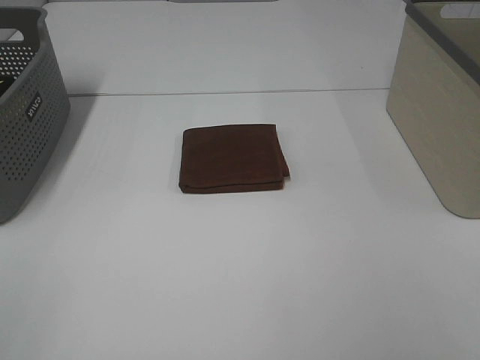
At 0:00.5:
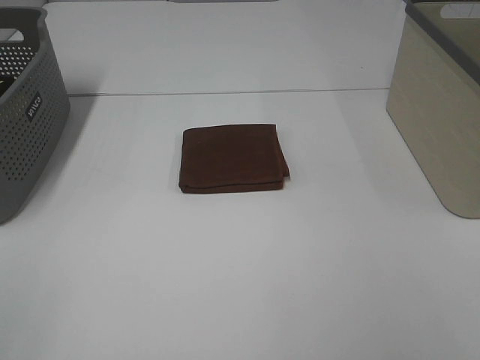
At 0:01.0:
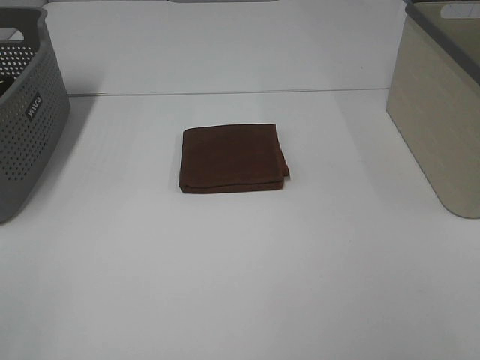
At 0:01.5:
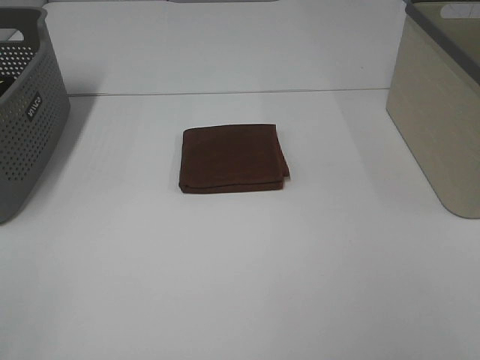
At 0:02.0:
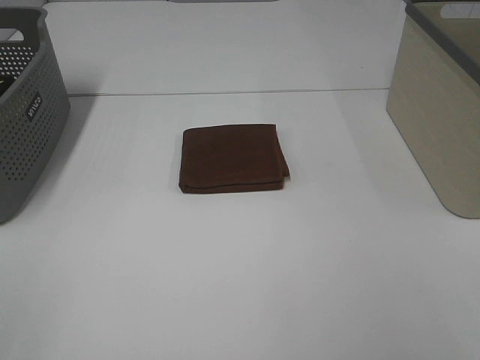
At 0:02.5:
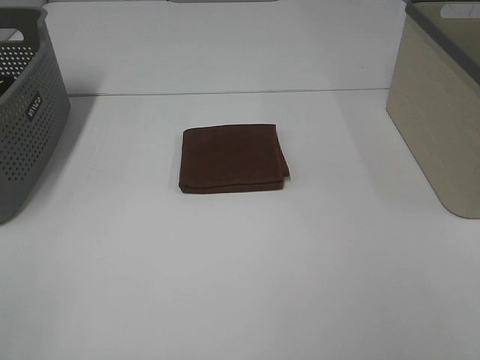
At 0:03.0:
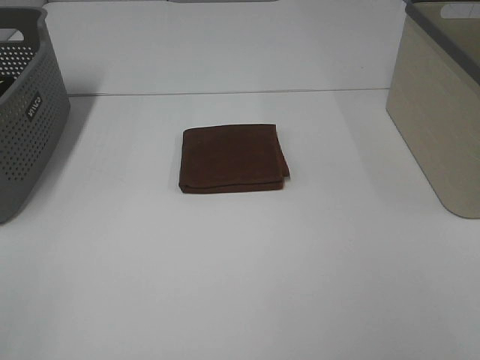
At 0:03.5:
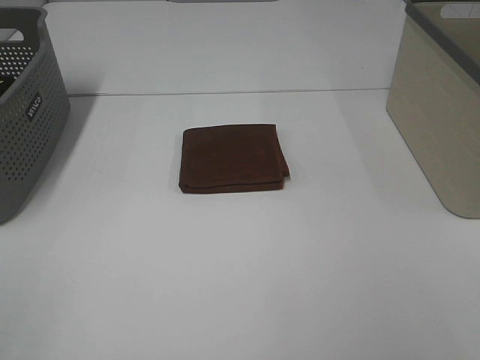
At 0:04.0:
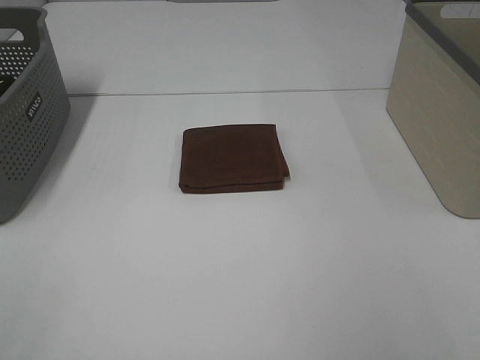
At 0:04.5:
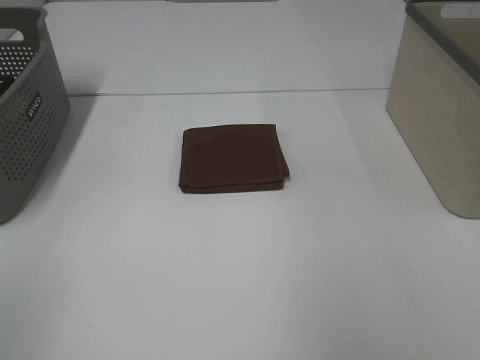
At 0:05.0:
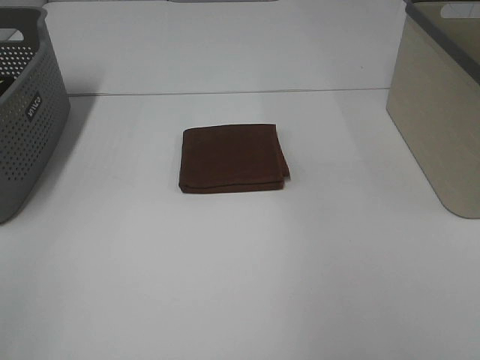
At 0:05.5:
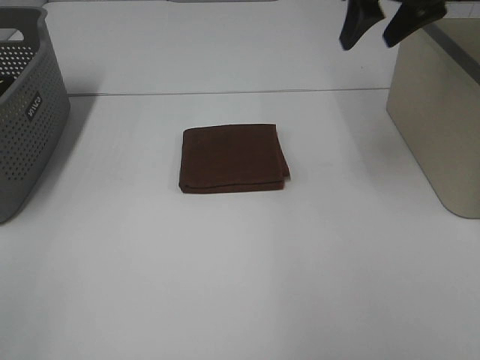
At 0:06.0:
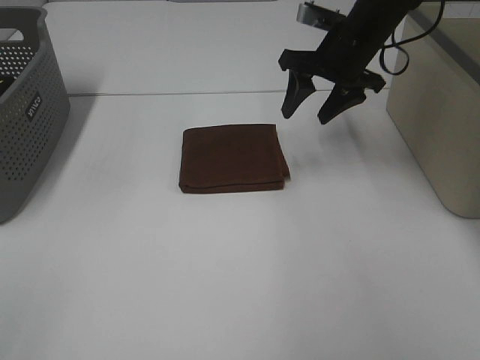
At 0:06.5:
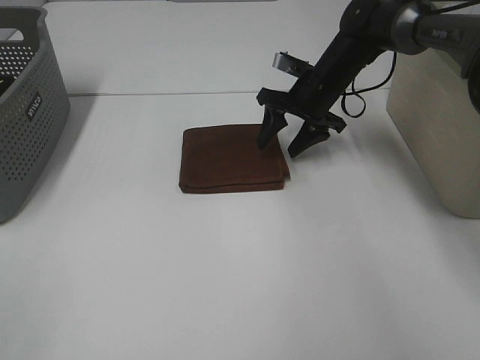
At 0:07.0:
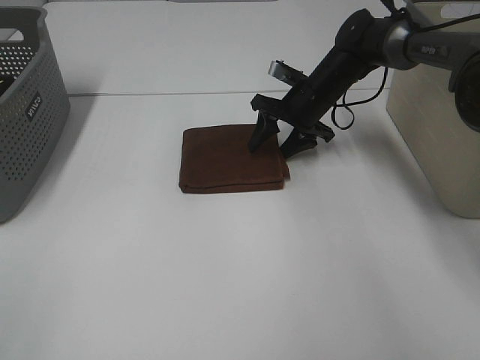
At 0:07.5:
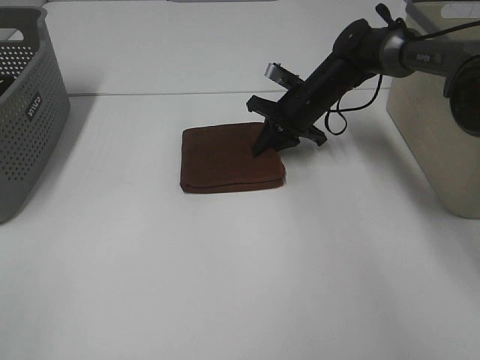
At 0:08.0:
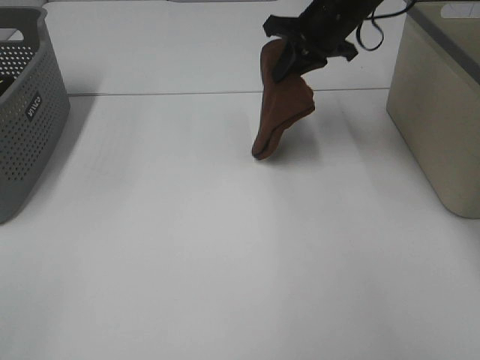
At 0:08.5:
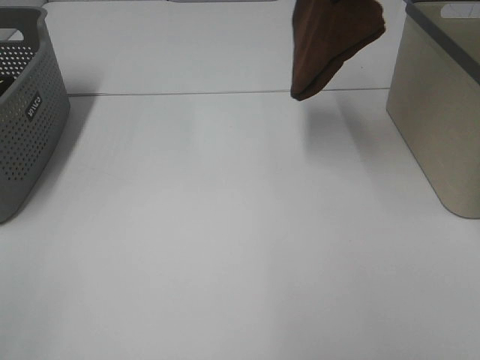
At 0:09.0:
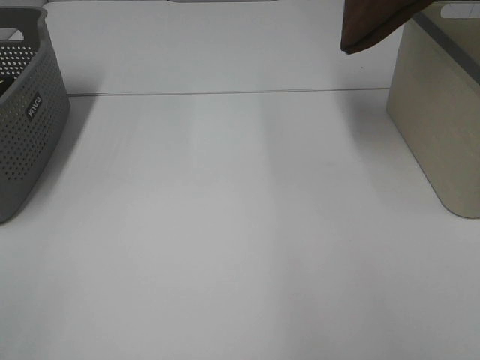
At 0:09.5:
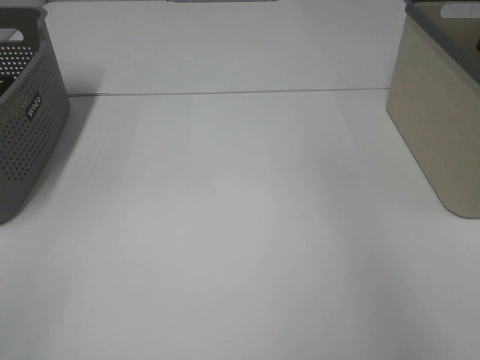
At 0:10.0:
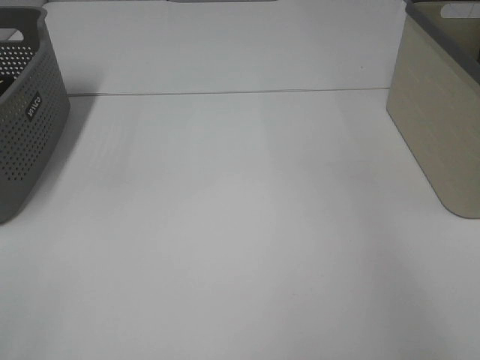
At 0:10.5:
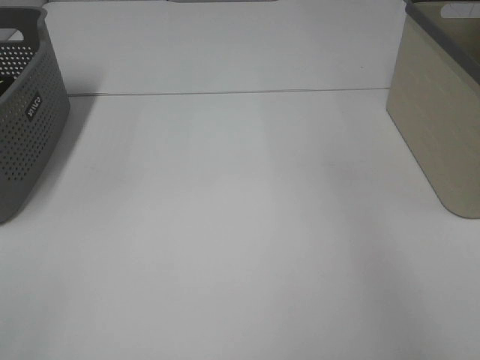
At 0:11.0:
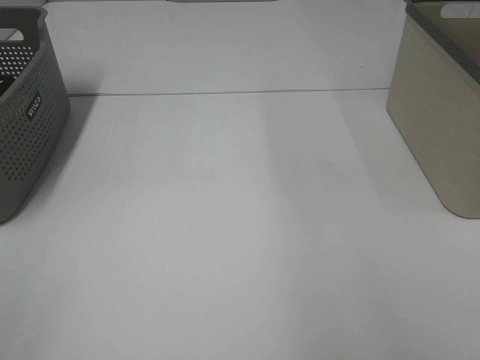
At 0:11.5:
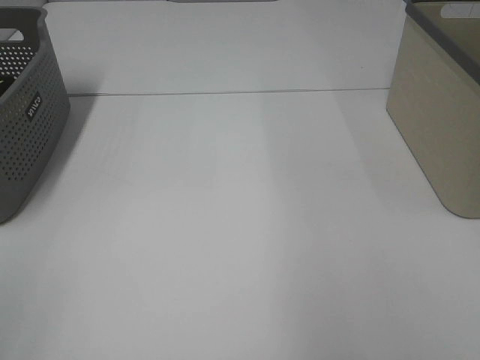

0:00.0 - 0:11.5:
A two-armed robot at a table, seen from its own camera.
Step, 0:00.0 - 0:07.5: Right hand: grab the folded brown towel.
Step, 0:08.0 - 0:10.0: Right hand: place the brown towel in right basket.
0:00.0 - 0:02.0: The two grippers keep their place.
0:04.0 - 0:06.0: The right gripper travels forward by some 40 cm.
0:06.0 - 0:07.5: The right gripper is displaced downward by about 10 cm, and closes up.
0:07.5 - 0:09.5: The right gripper goes approximately 40 cm upward and to the right.

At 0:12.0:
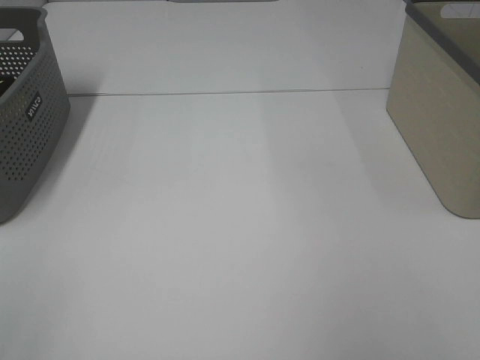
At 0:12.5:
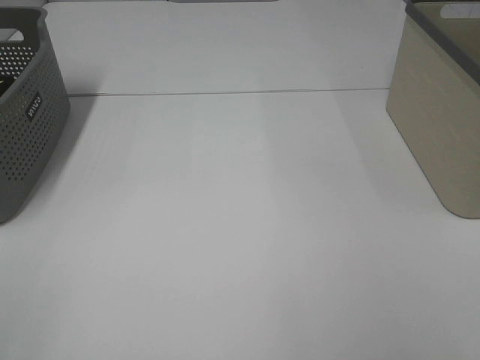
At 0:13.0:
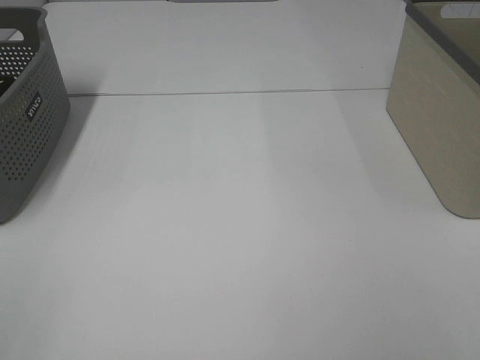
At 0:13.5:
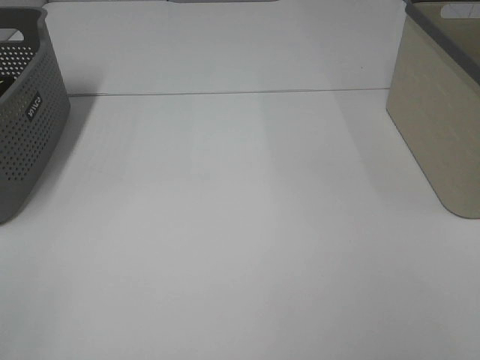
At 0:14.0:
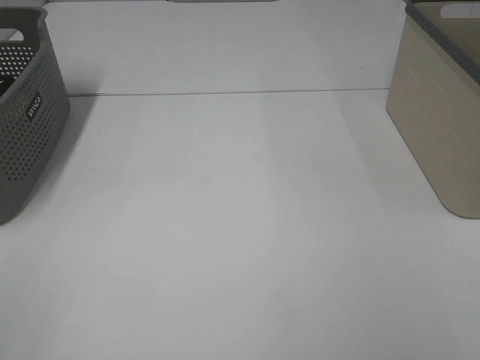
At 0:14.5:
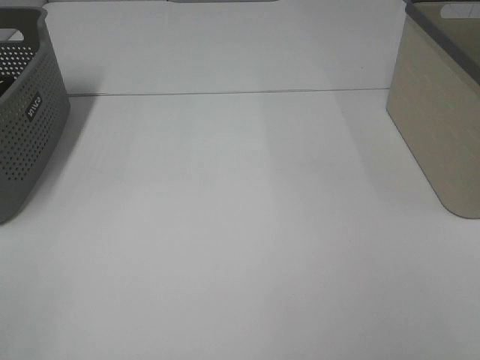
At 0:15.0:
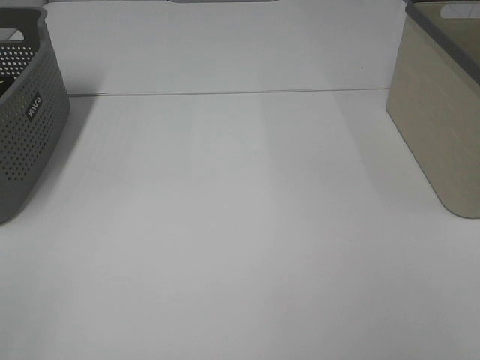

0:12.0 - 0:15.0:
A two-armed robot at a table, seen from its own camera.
0:13.5 - 0:15.0: Both grippers stay put.

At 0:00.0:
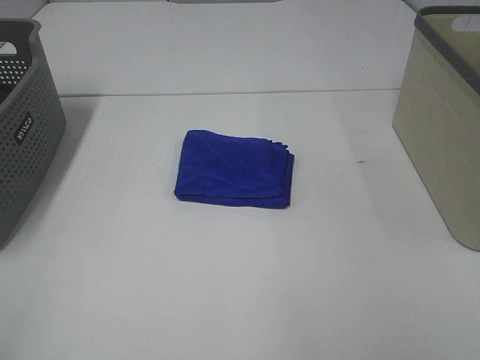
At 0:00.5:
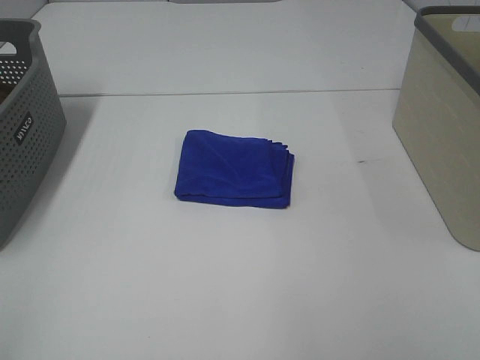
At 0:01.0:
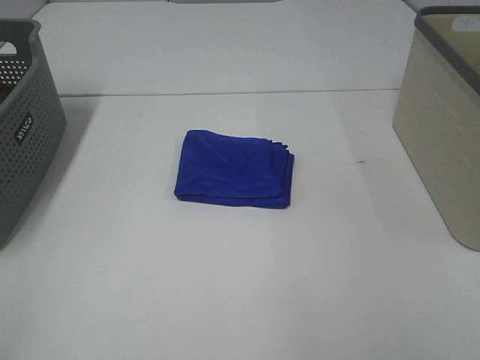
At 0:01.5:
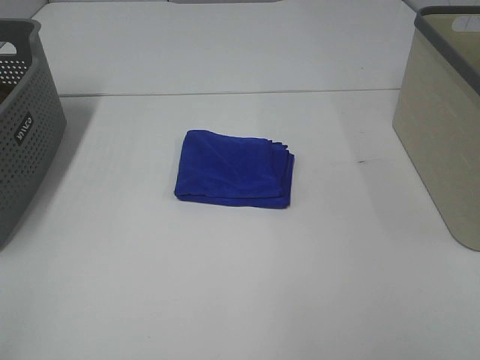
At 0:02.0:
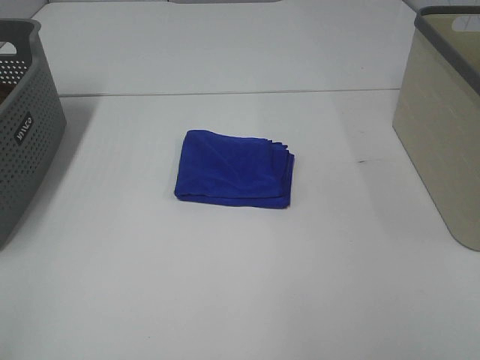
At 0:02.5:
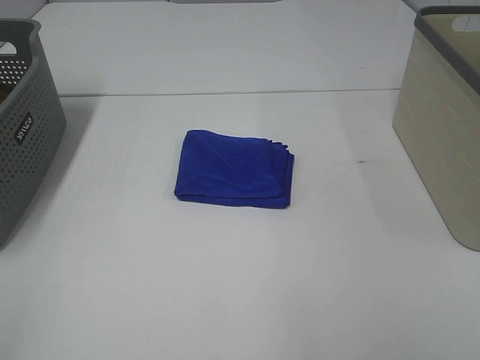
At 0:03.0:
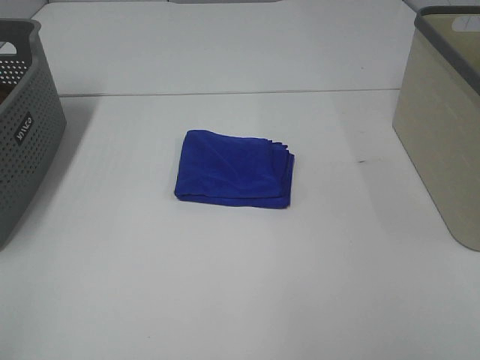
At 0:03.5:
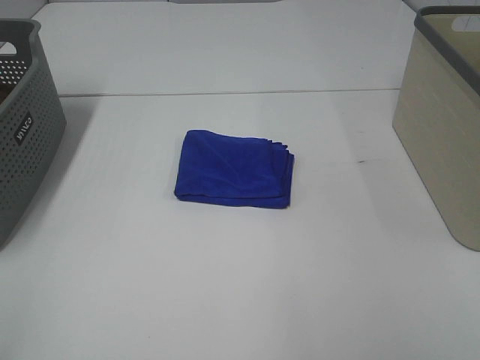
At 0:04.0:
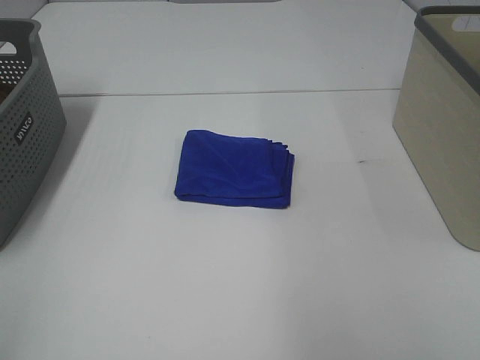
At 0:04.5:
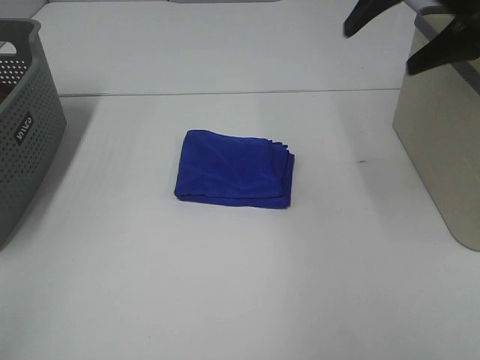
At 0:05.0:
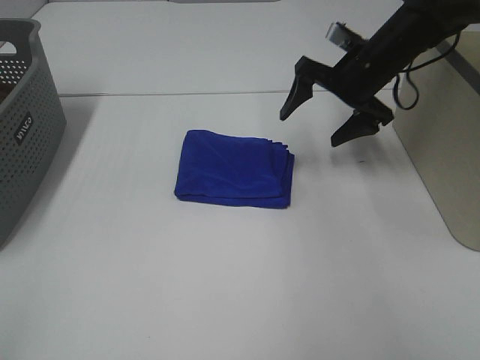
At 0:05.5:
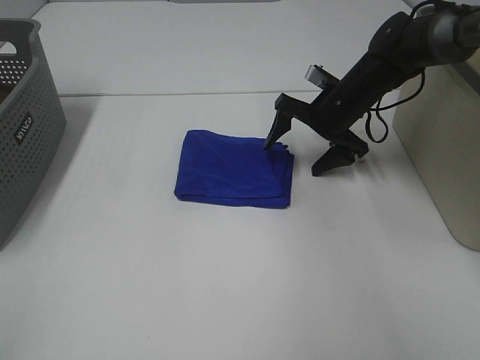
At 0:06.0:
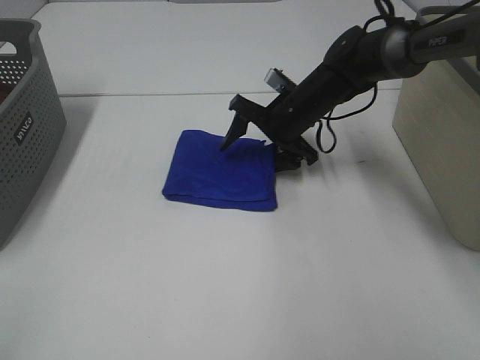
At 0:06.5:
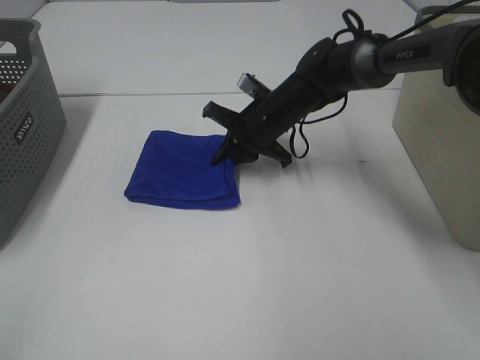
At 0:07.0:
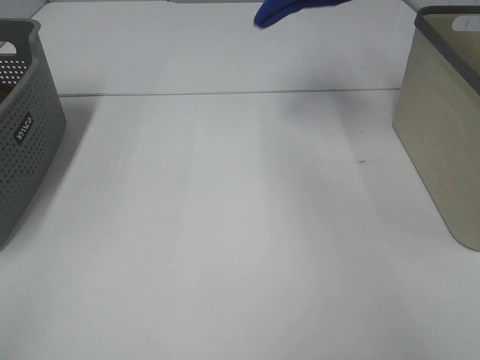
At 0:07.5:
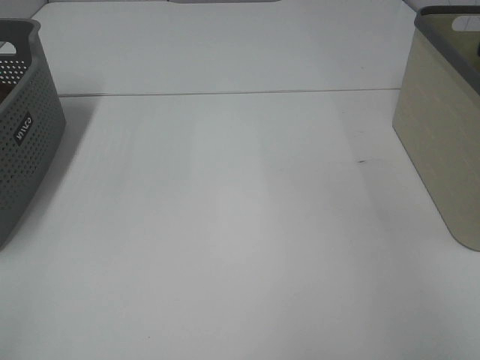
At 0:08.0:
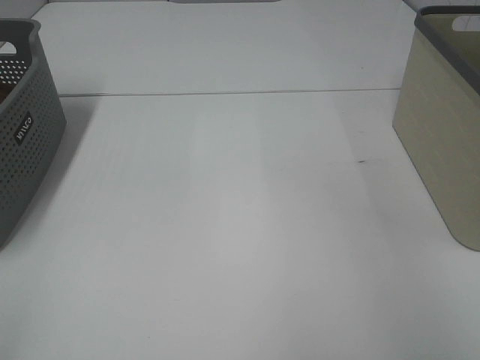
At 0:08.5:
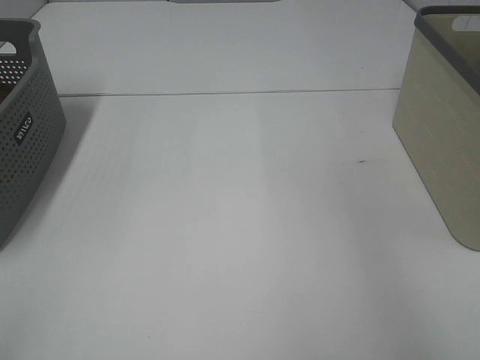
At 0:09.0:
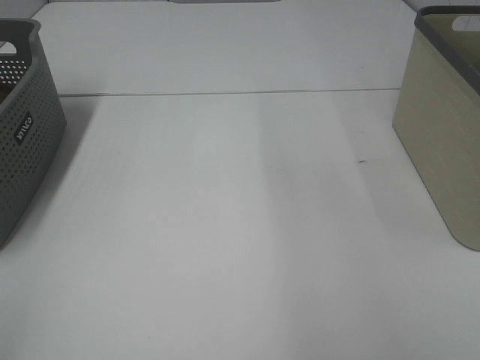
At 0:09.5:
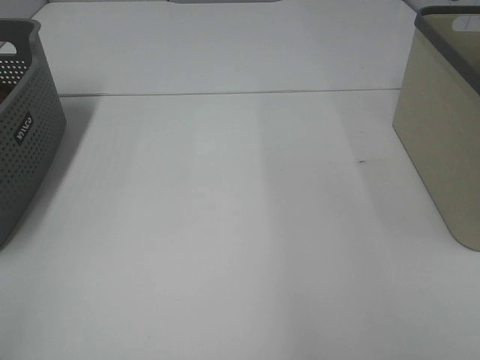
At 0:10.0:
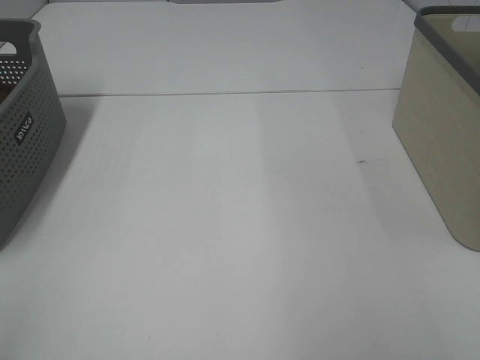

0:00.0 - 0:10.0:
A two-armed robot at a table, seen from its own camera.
Step, 0:00.0 - 0:06.0: Right hand: grab the folded blue towel.
Step, 0:06.5 - 0:08.0: Right hand: place the blue towel in right basket.
0:00.0 - 0:02.0: Neither gripper changes place.
0:04.0 - 0:06.0: The right gripper is displaced downward, forward and to the left by approximately 50 cm.
0:06.0 - 0:08.0: The right gripper heads to the right and upward, covering approximately 40 cm, and closes up.

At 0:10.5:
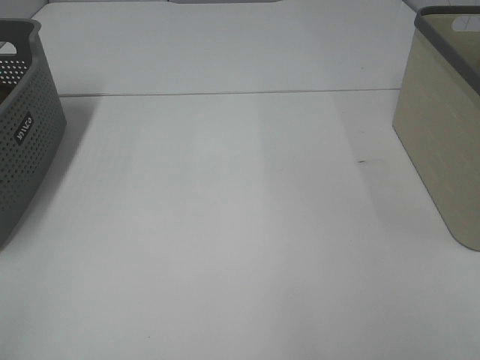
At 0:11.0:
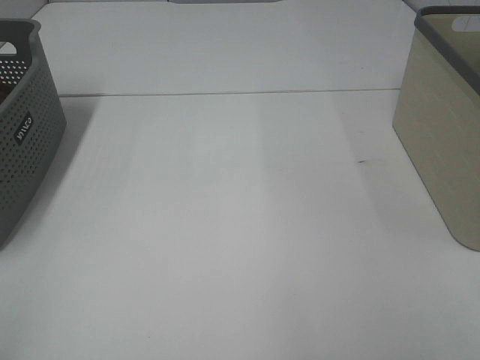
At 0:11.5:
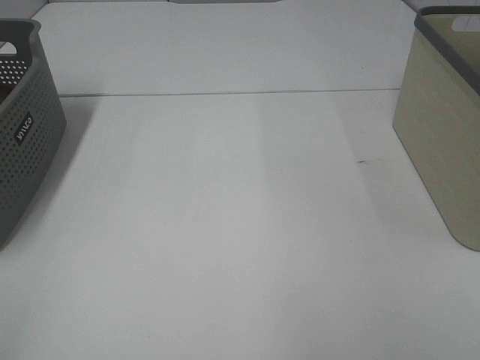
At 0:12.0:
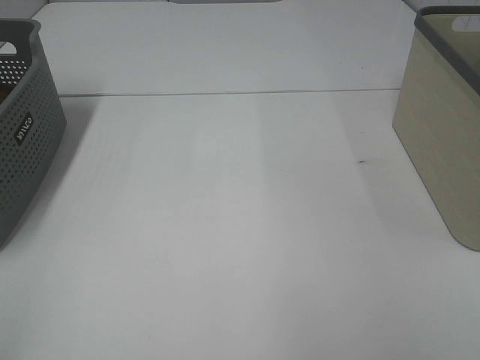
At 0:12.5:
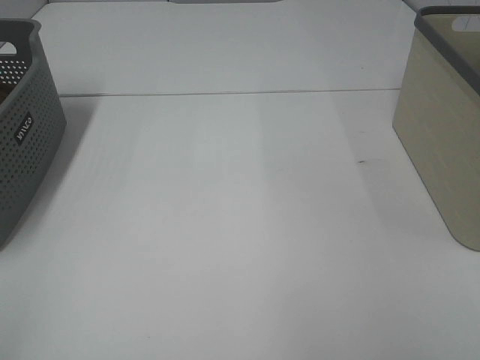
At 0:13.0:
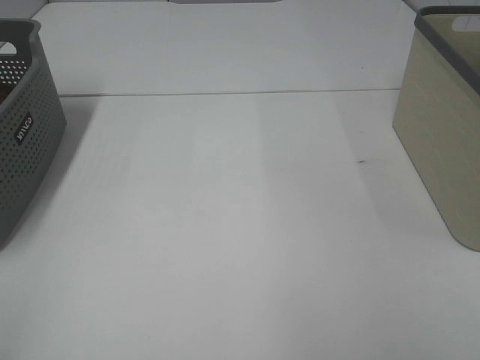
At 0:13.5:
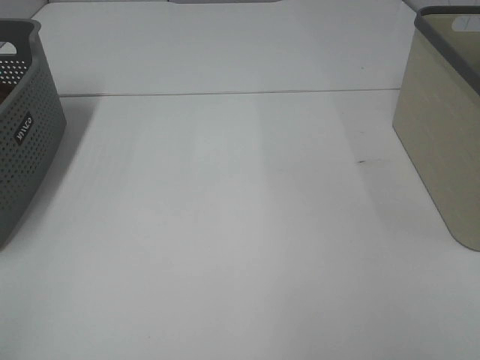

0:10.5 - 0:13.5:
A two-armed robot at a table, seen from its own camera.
0:12.0 - 0:13.5: The two grippers keep their place.
